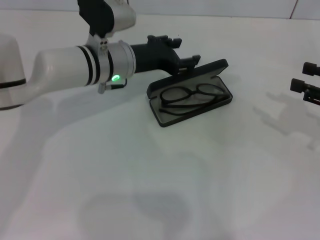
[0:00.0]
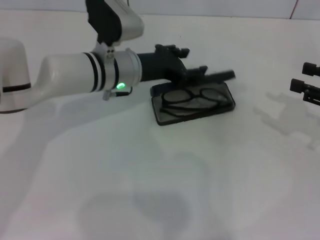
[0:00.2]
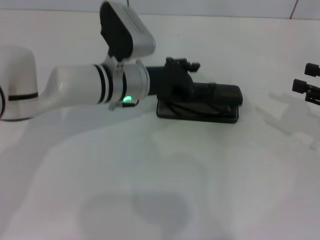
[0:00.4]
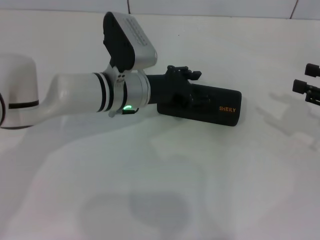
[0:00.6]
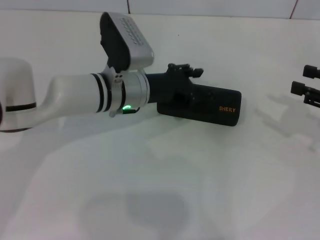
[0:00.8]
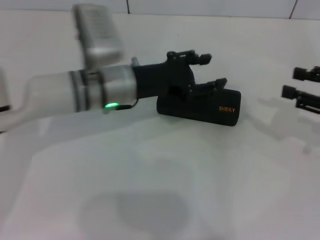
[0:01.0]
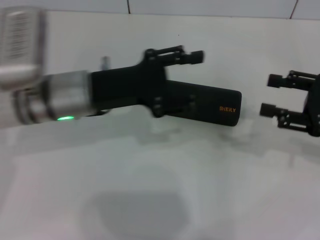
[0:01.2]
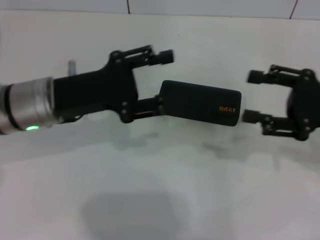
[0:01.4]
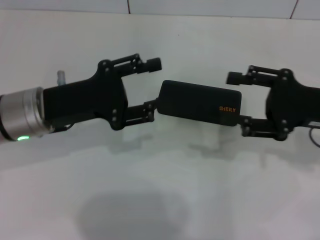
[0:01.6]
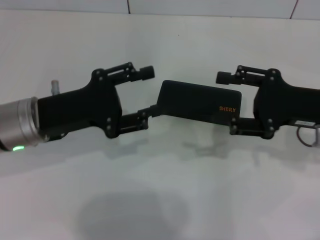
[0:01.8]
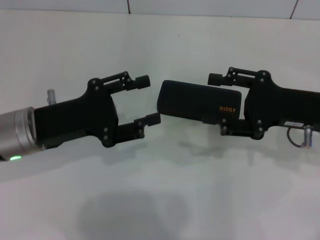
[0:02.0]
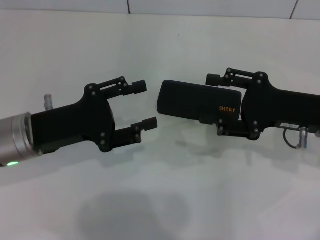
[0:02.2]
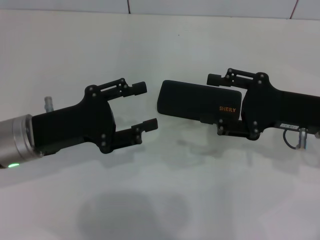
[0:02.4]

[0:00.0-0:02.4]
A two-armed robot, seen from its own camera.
0:00.0 to 0:01.2: The left gripper shifts roughly 10 cm backward and to the left.
0:01.2 to 0:02.4: The left gripper heads to the left and backward, covering roughly 10 cm; the right gripper travels to the left by approximately 5 cm.

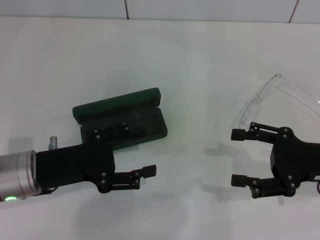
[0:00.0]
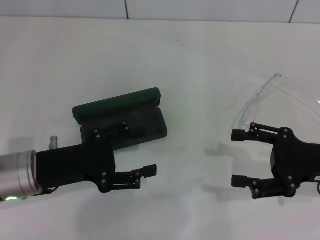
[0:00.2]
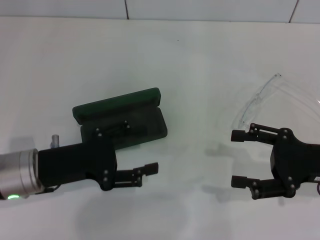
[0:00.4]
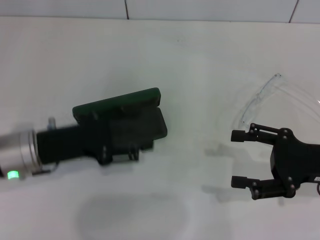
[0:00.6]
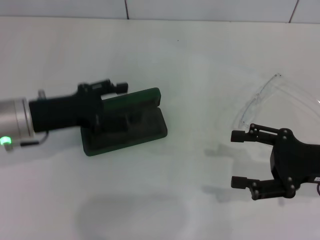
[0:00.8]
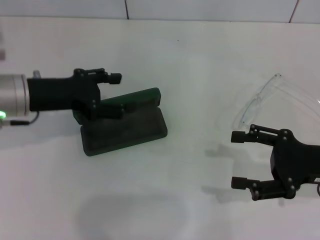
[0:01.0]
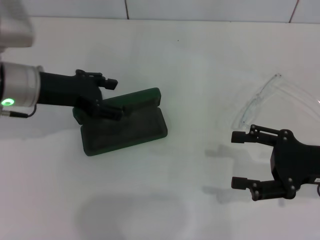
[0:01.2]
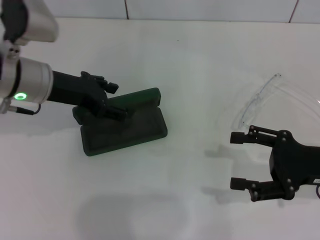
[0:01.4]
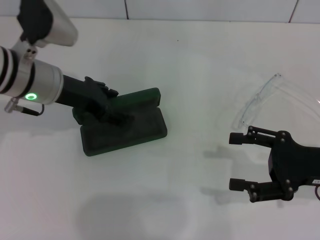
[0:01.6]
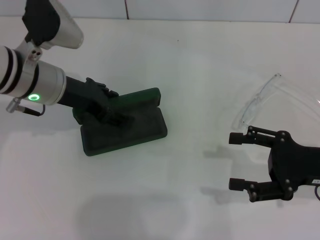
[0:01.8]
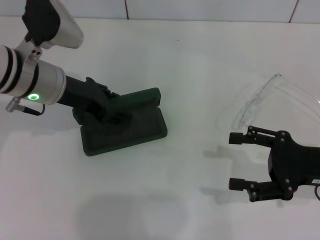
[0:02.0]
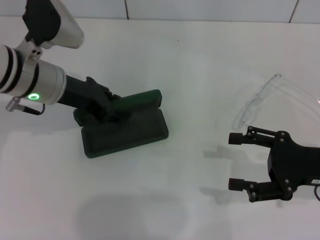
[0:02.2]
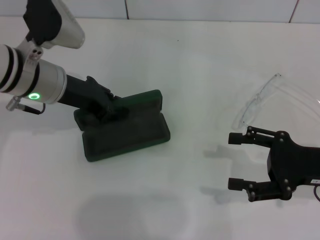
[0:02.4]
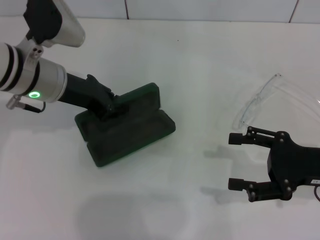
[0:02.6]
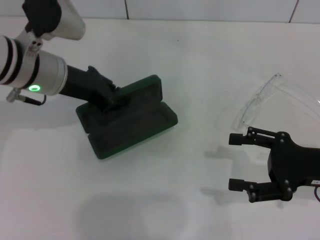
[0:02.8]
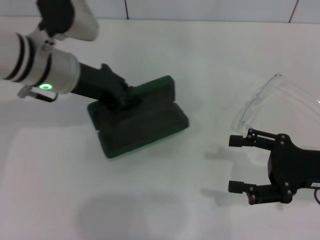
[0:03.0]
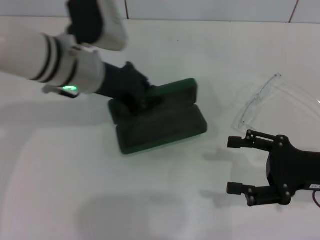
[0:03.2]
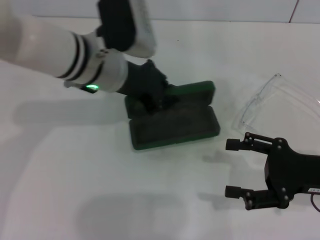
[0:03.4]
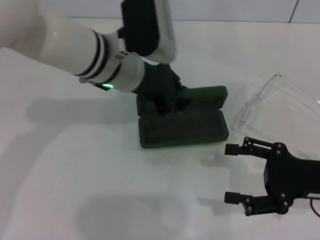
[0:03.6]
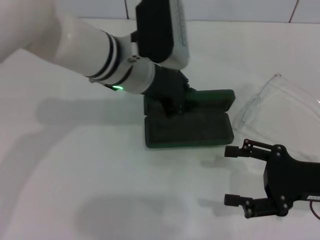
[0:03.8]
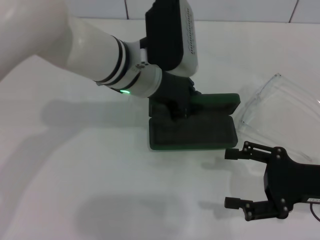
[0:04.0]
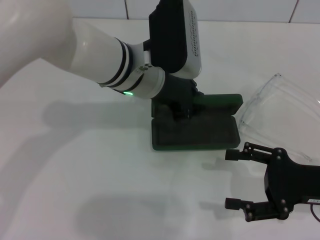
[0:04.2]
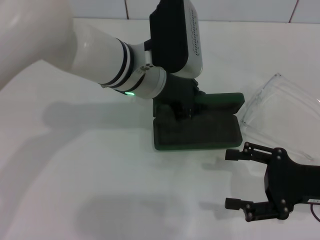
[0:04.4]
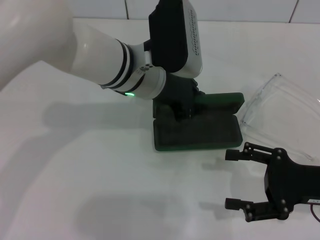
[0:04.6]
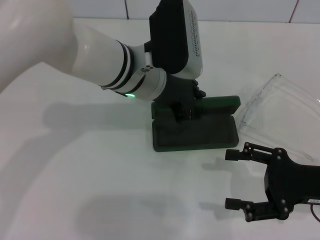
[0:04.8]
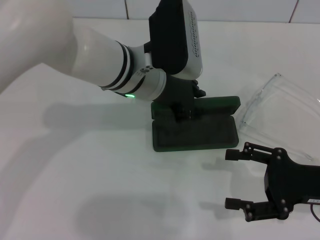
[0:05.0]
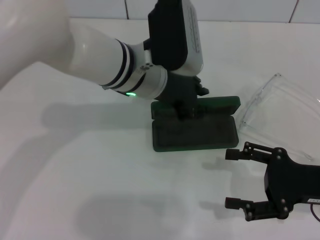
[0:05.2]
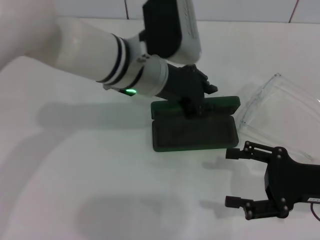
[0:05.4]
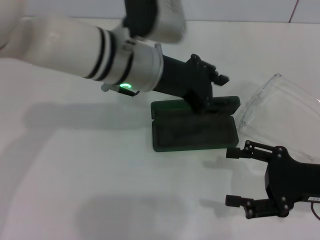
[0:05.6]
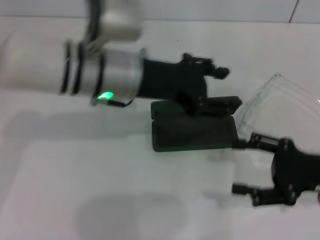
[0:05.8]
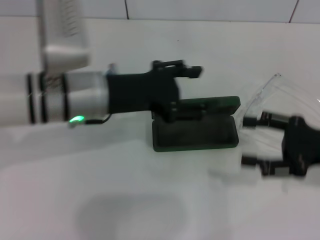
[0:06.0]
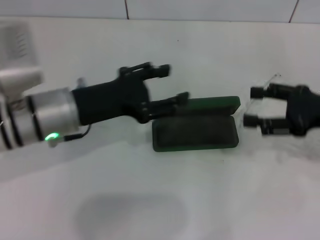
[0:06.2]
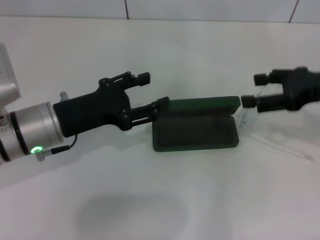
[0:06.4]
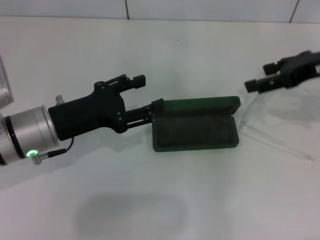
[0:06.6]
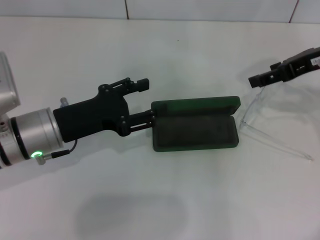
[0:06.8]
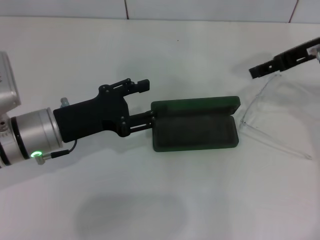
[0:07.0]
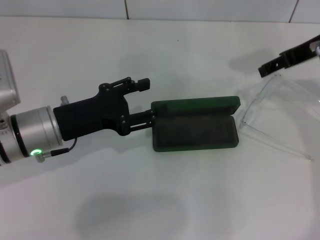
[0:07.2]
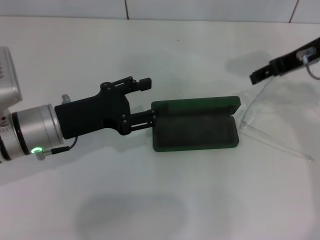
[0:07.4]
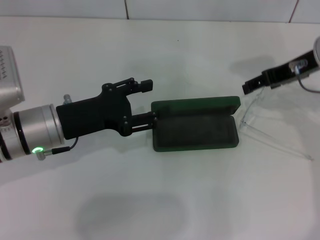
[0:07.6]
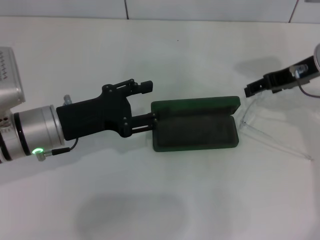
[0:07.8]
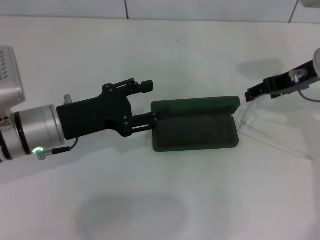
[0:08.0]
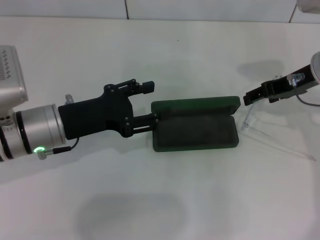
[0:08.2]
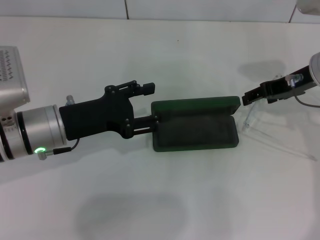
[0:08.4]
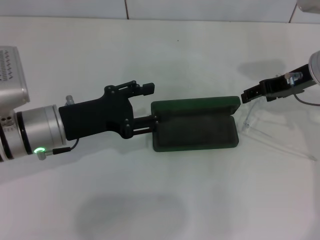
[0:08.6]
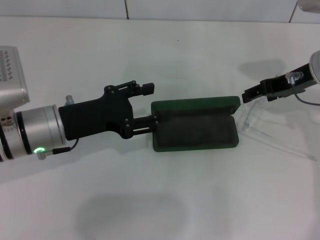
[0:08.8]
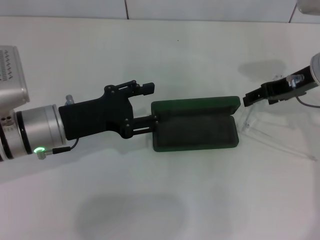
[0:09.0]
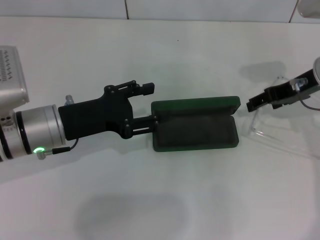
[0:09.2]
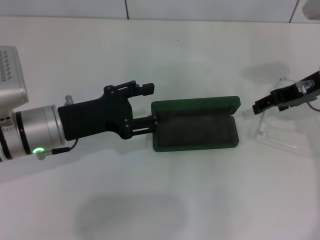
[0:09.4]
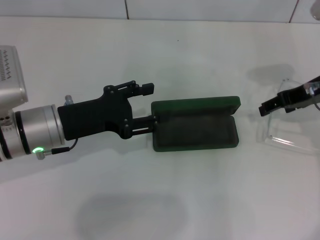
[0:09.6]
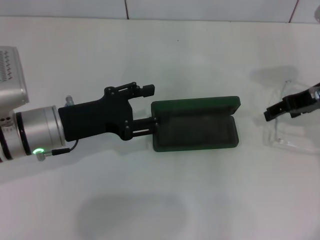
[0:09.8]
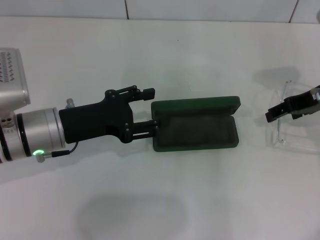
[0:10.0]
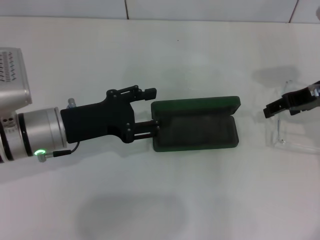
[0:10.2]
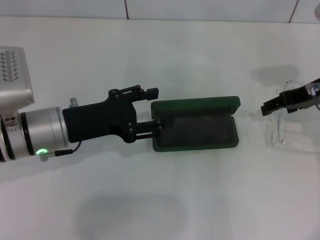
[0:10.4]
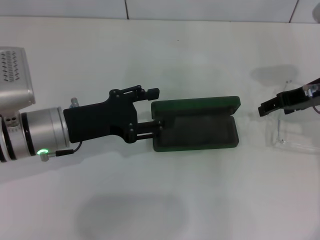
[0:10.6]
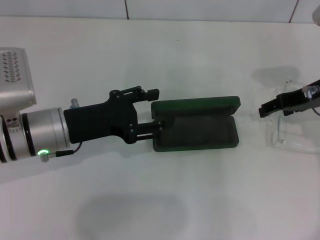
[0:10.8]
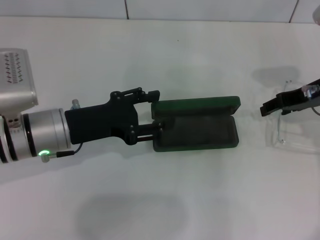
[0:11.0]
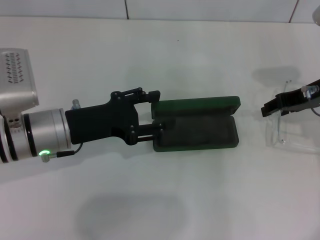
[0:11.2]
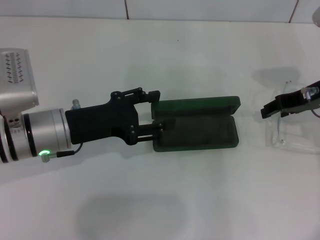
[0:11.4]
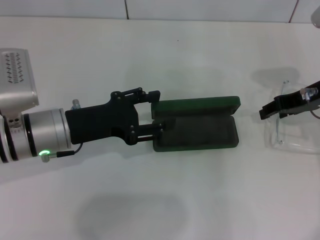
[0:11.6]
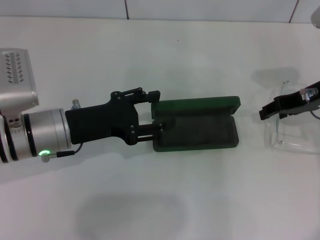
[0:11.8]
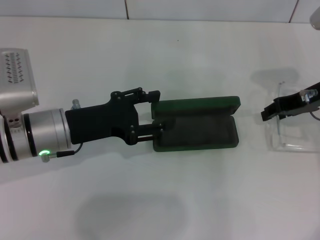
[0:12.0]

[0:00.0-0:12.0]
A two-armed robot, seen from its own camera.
Step, 0:00.0 to 0:02.2: Grab the glasses case with your left hand.
Step, 0:02.4 to 0:05.2: Place the glasses case in the center of the table with your left hand.
0:00.0 to 0:01.6: The left gripper moves forward and upward, about 15 cm.
0:01.6 to 0:03.0: The left gripper closes up.
0:03.0 to 0:04.4: The left gripper goes approximately 10 cm to the right.
0:04.4 to 0:06.0: The left gripper heads to the left, covering some 10 cm, and opens up.
0:06.0 to 0:07.6: The left gripper travels to the left and downward by about 10 cm. The right gripper travels forward, upward and to the left by roughly 15 cm.
0:07.6 to 0:10.4: The grippers make only small movements.
0:10.4 to 0:12.0: The right gripper closes.

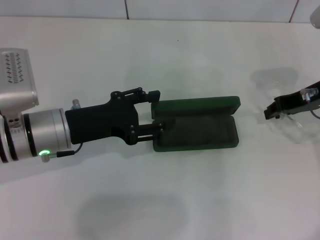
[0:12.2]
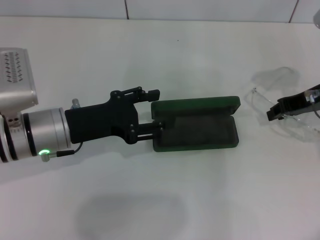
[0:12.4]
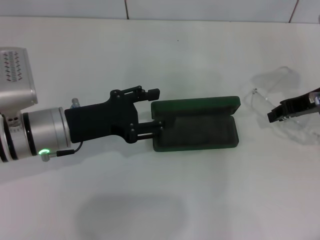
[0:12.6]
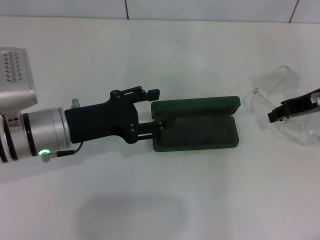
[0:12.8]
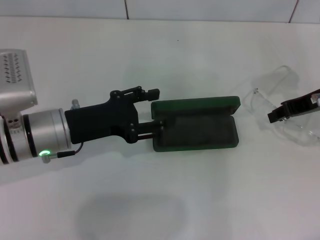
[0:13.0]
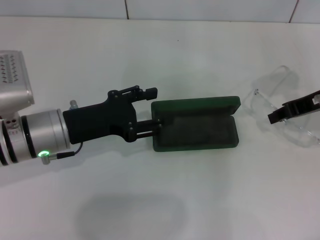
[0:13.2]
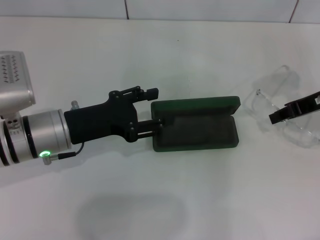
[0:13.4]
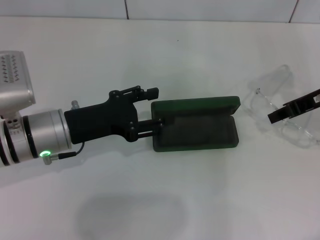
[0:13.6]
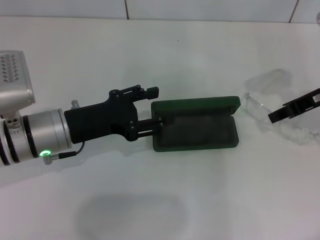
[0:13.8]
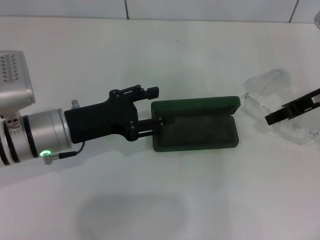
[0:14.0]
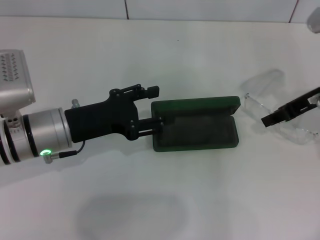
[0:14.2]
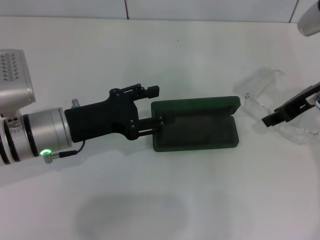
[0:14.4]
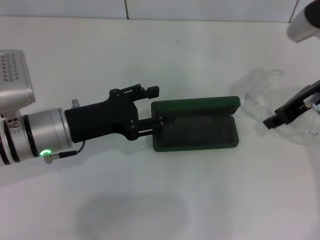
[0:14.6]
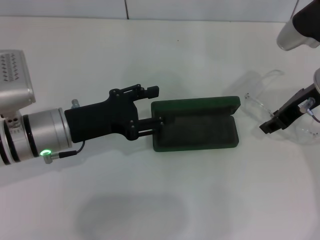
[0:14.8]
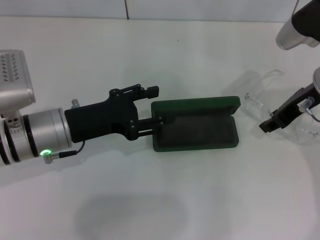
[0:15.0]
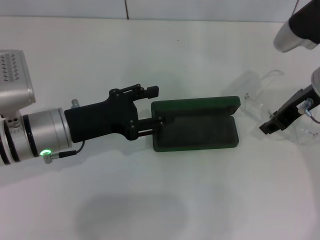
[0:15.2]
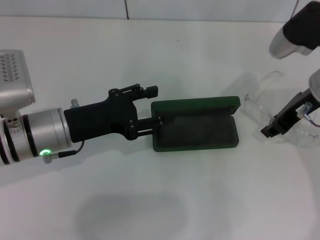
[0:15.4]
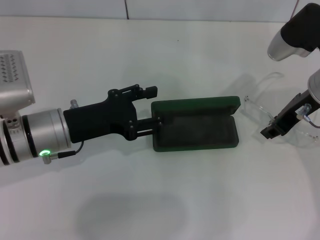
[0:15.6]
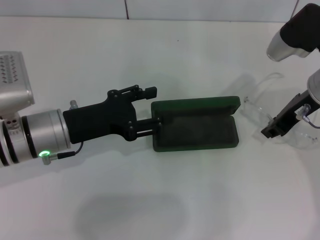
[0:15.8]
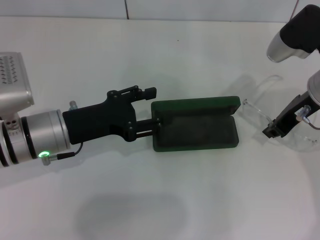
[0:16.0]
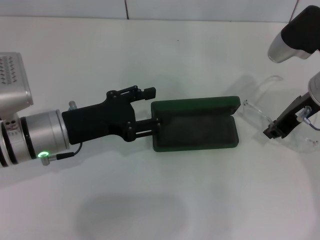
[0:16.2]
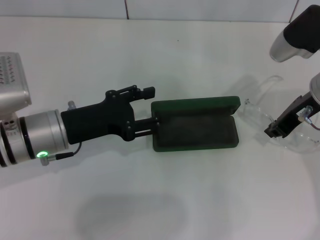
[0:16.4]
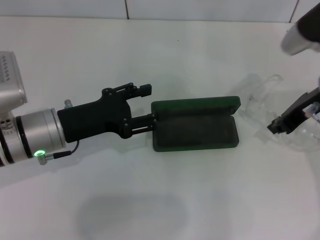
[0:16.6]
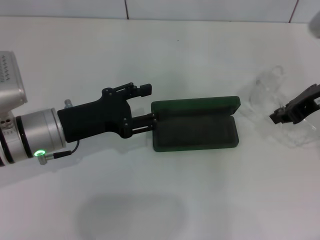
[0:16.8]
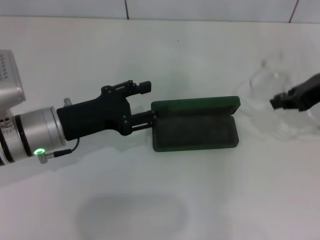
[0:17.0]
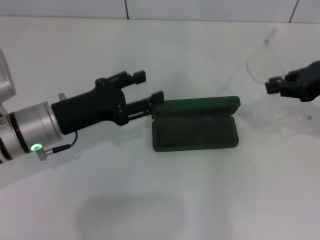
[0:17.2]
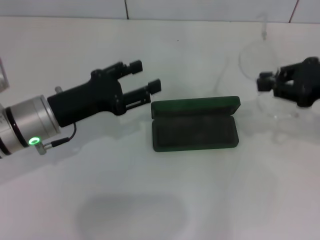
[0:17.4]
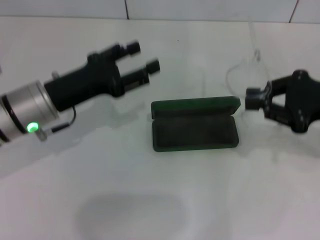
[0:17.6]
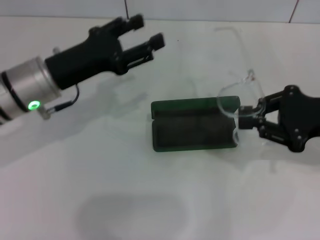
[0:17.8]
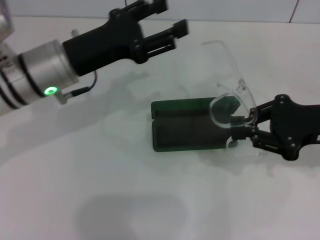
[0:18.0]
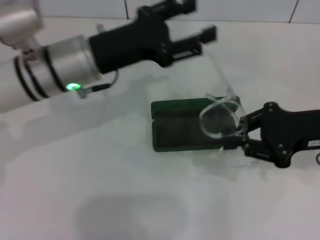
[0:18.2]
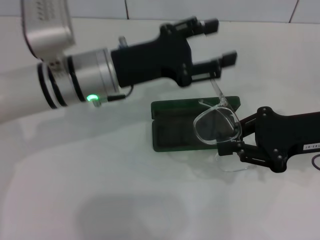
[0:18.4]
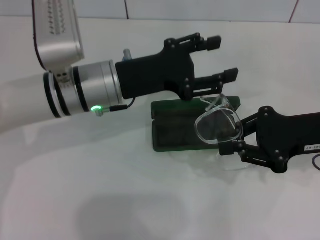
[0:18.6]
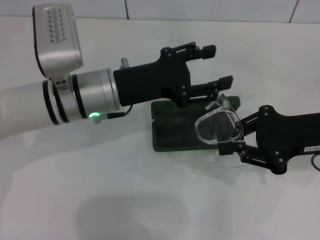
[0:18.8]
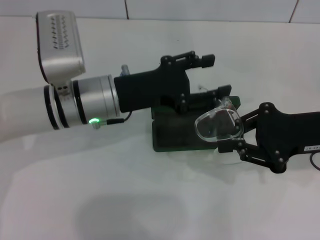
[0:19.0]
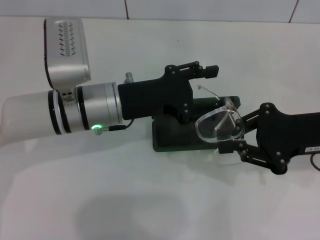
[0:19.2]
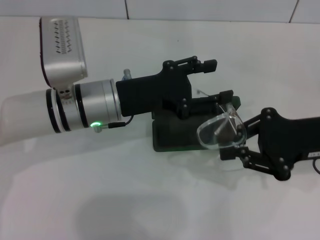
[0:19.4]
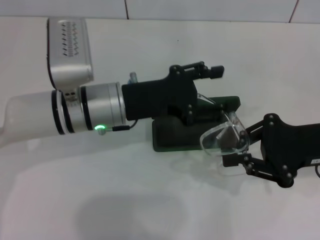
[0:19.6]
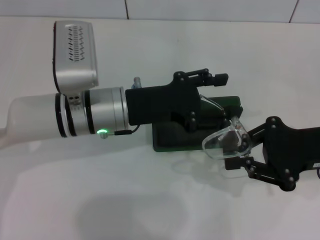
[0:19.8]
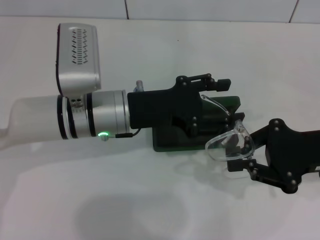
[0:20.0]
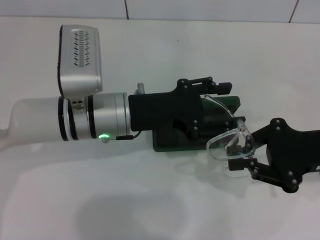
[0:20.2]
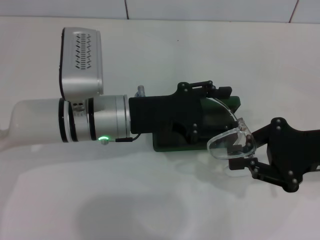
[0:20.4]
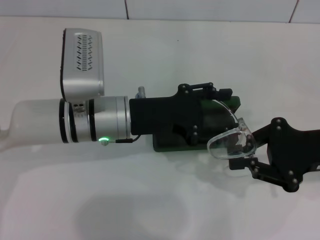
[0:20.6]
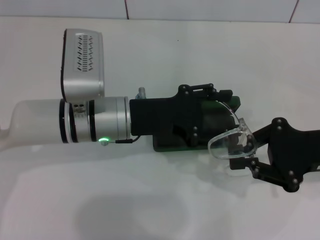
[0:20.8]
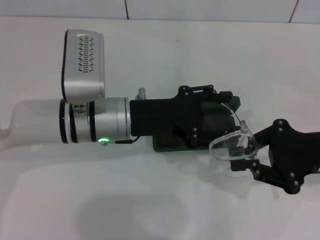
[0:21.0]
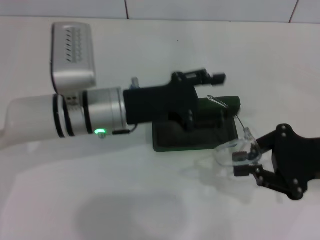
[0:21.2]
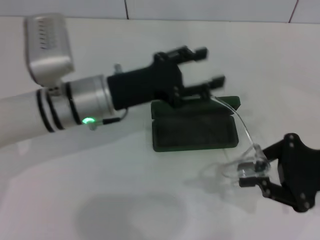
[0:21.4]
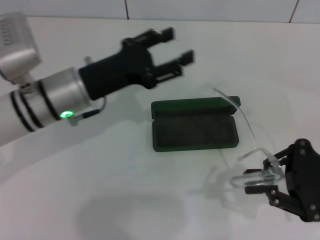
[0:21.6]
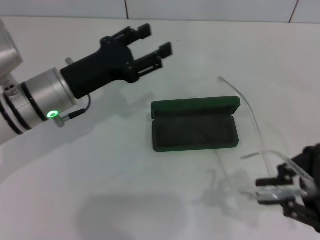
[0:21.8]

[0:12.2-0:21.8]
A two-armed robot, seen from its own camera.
Step, 0:12.2 to 0:16.4: Grab the eyeglass frame with your right hand.
0:12.2 to 0:13.8: The grippers make only small movements.
0:15.4 to 0:17.0: The right gripper shifts some 5 cm to the right.
0:17.0 to 0:18.6: The left gripper is displaced to the right by roughly 10 cm; the right gripper travels downward and backward by some 10 cm.
0:20.2 to 0:21.8: The left gripper travels to the left by roughly 5 cm.
